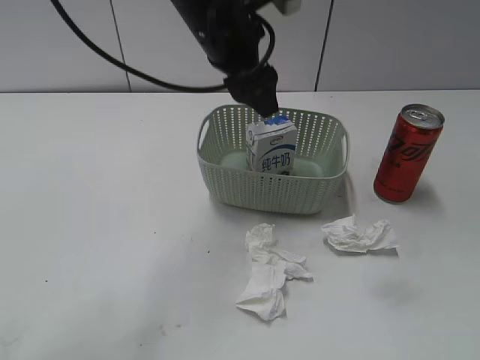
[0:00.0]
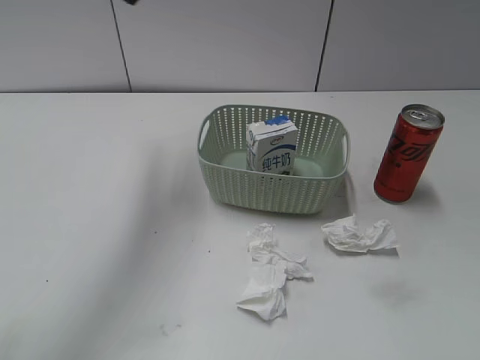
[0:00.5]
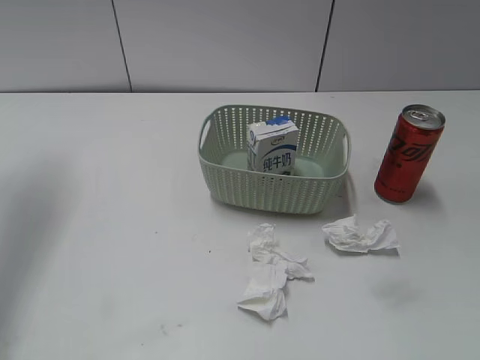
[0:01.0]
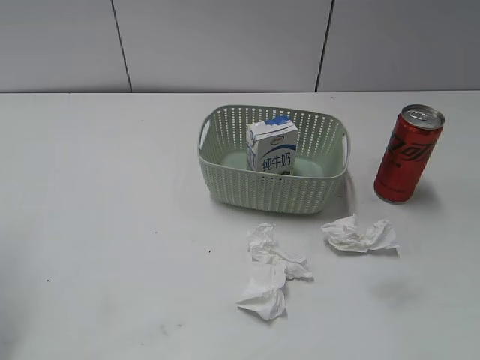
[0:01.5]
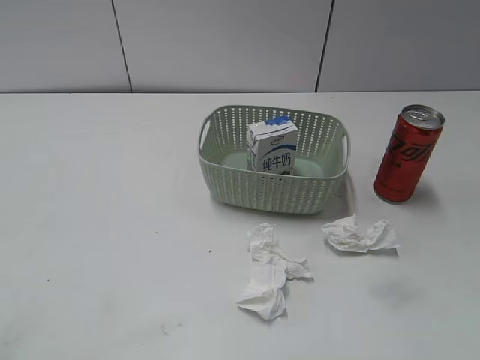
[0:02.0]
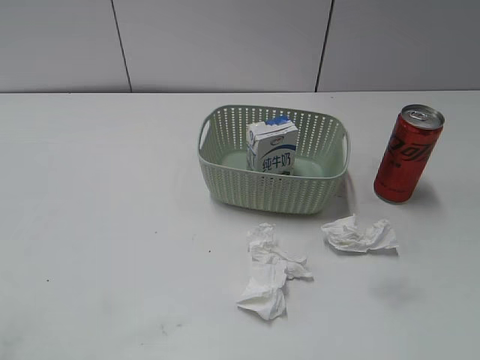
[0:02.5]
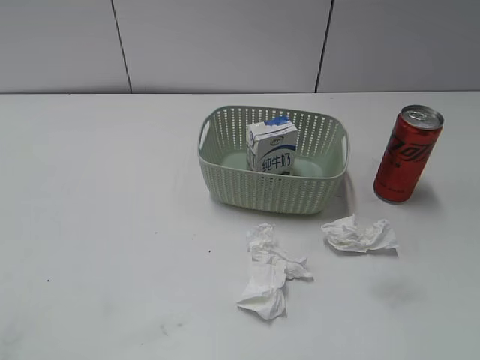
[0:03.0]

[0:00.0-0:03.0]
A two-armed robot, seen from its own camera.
0:00.0 to 0:01.5: The left gripper shifts about 35 cm to the left and backward.

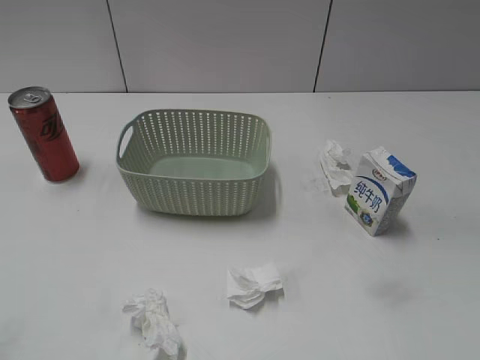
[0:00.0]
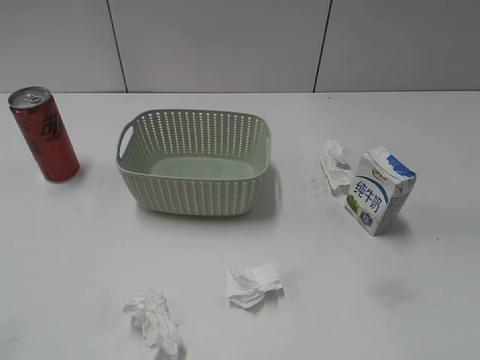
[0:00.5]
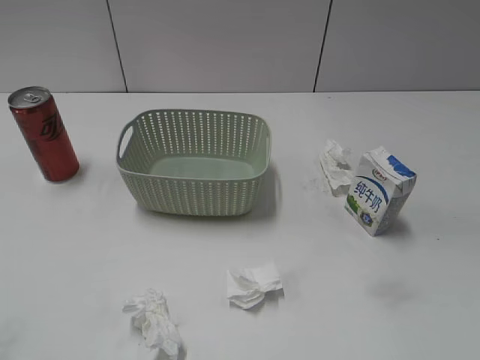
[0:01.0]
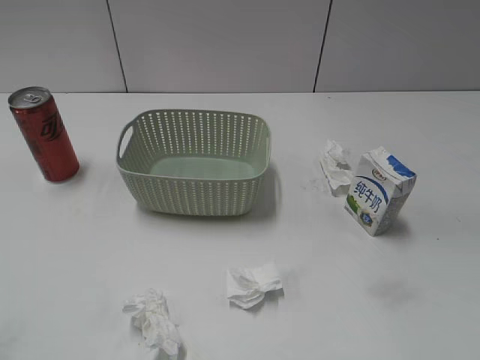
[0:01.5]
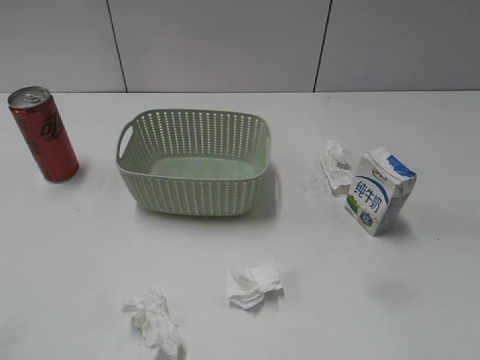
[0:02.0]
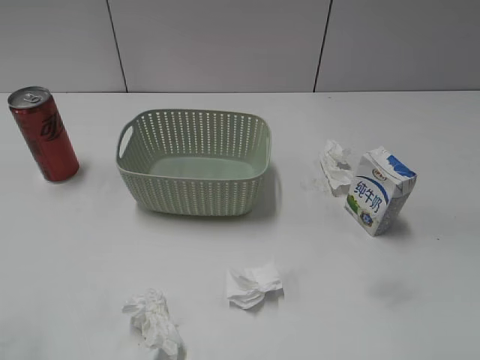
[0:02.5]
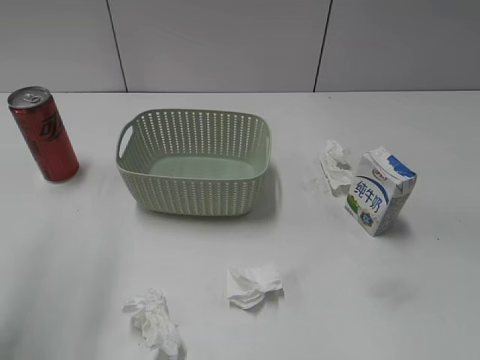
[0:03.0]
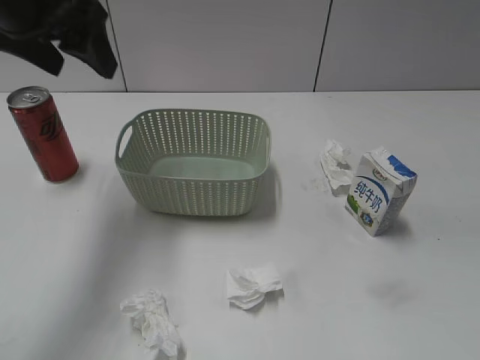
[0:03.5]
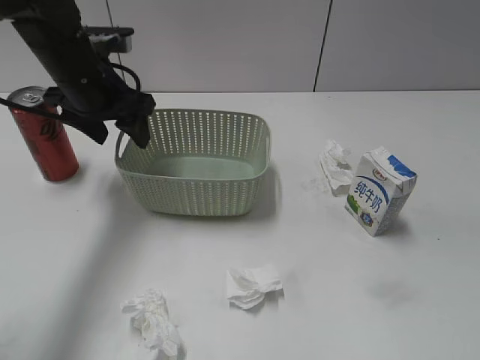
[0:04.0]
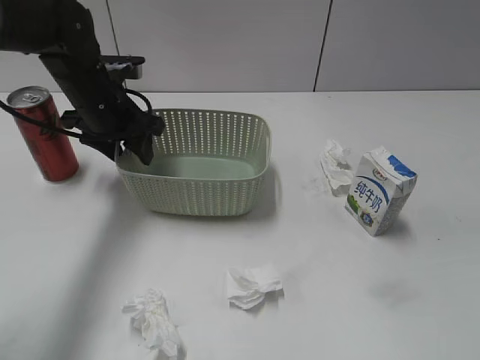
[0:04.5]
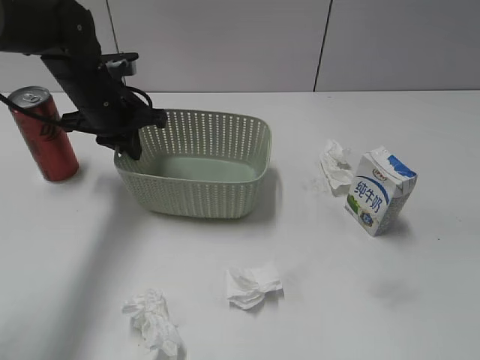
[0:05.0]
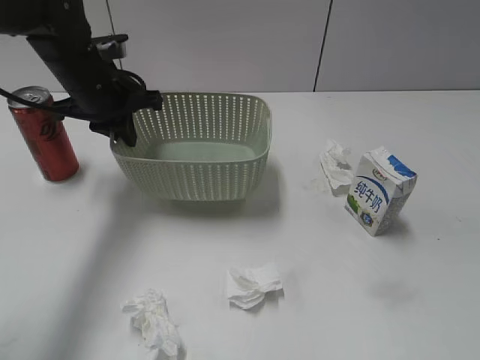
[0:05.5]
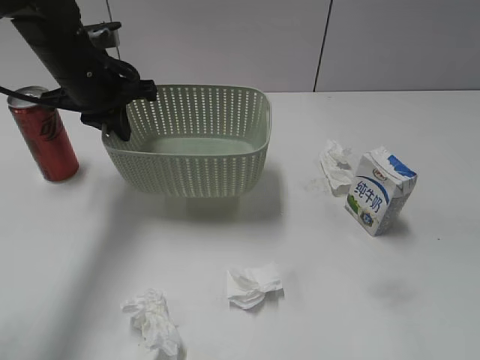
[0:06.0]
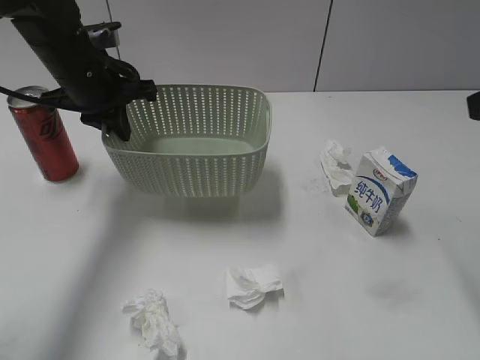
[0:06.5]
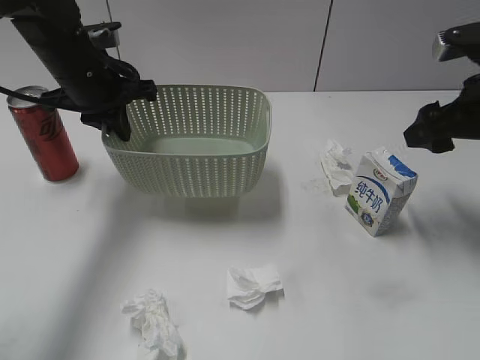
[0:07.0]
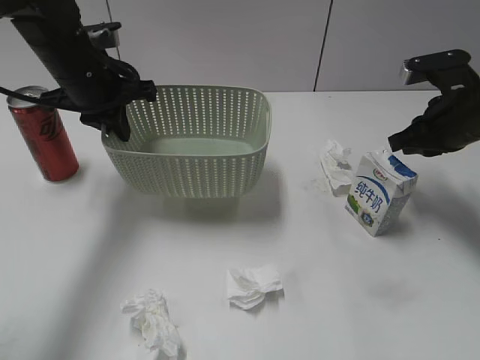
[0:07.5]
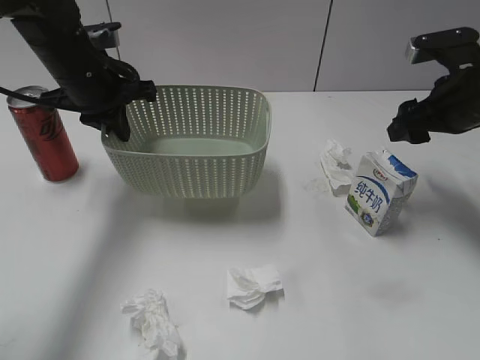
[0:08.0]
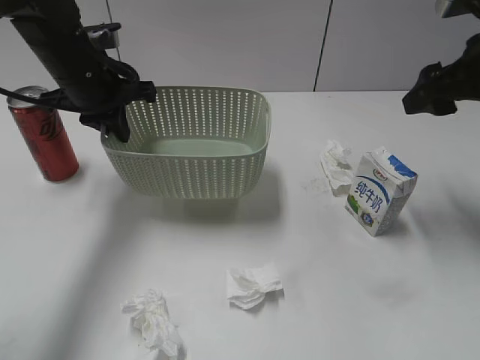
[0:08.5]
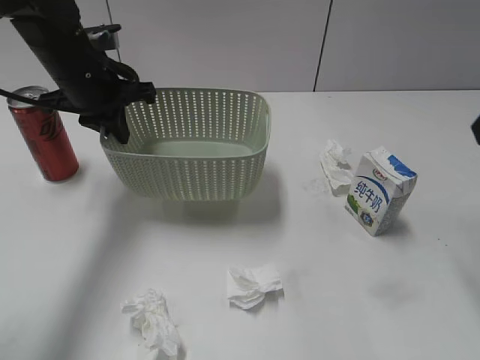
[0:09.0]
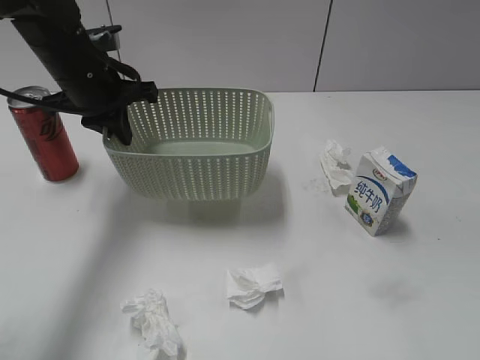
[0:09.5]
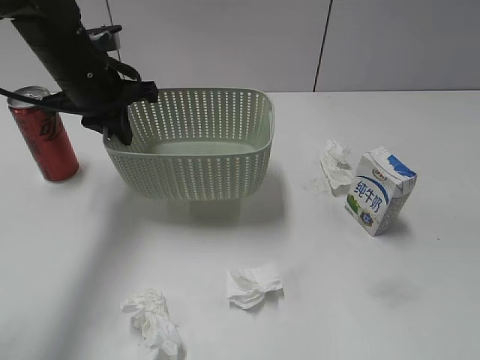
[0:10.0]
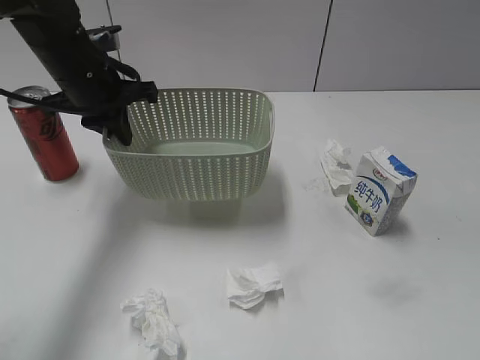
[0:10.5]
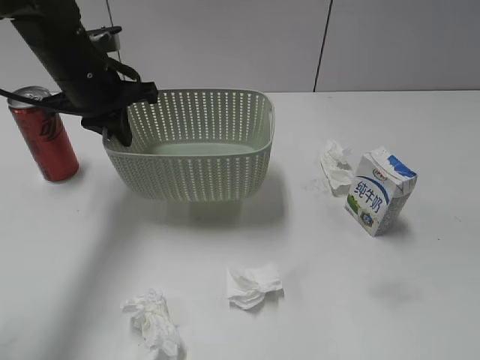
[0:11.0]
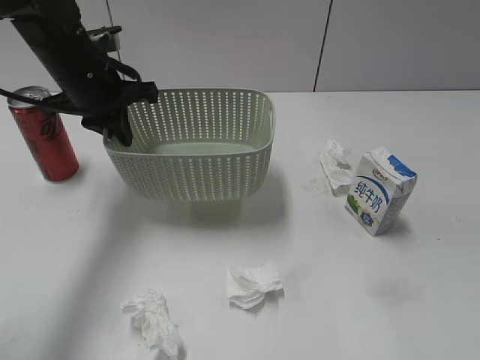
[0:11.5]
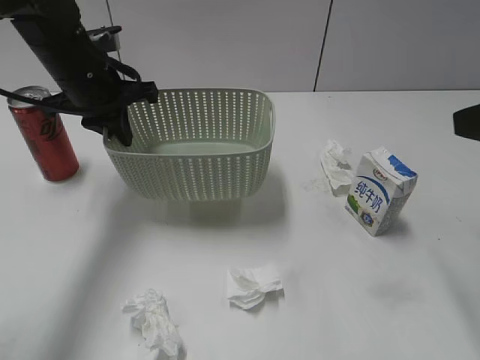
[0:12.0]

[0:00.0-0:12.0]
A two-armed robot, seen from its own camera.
Step, 0:03.5 to 0:05.0: Grasp the basket with left gripper.
Step, 0:05.5 to 0:06.0: Lift the basket with left gripper.
0:02.0 to 0:04.0: The left gripper moves forward, approximately 40 cm, and opens its fingers.
0:04.0 to 0:06.0: The right gripper shifts some 5 cm forward; the left gripper closes its fingers.
0:06.0 to 0:08.0: The right gripper travels forward and downward by roughly 30 cm, and closes.
0:08.0 to 0:10.0: The right gripper moves backward, some 35 cm.
0:10.0 to 0:12.0: The right gripper goes about 20 cm forward.

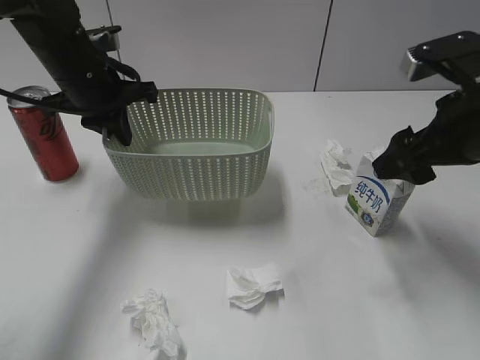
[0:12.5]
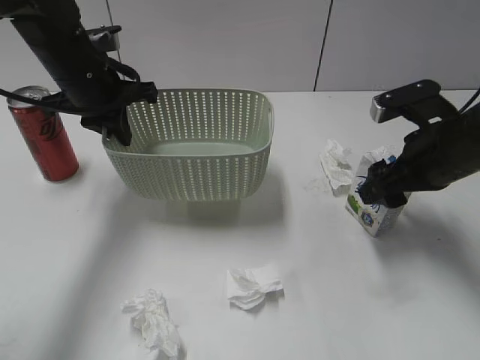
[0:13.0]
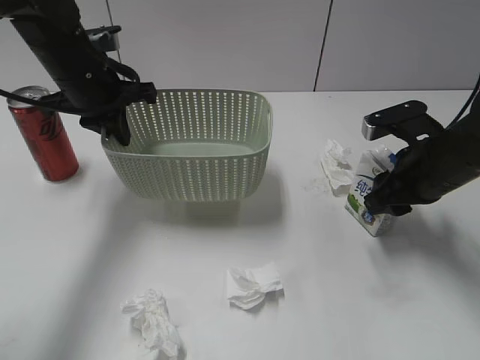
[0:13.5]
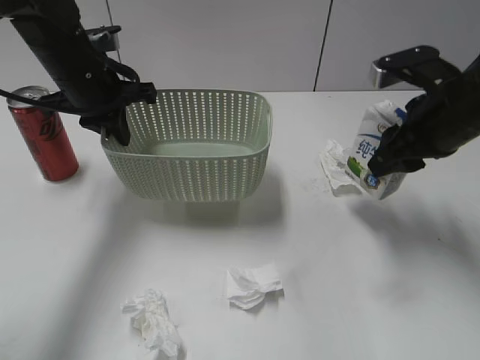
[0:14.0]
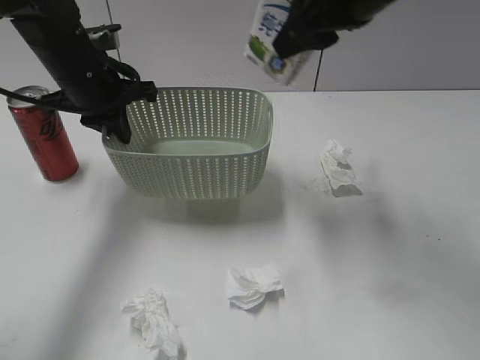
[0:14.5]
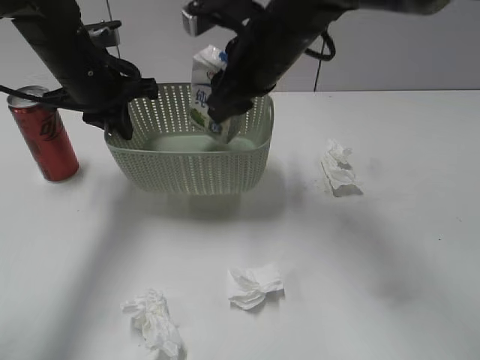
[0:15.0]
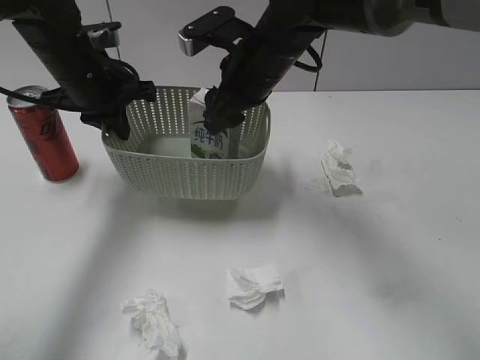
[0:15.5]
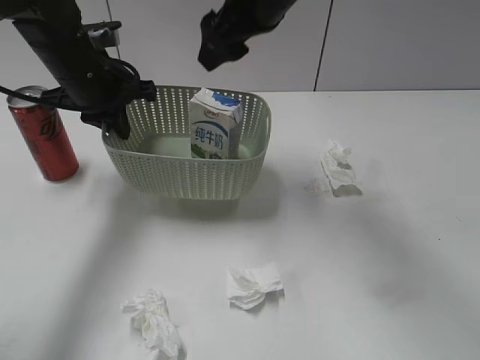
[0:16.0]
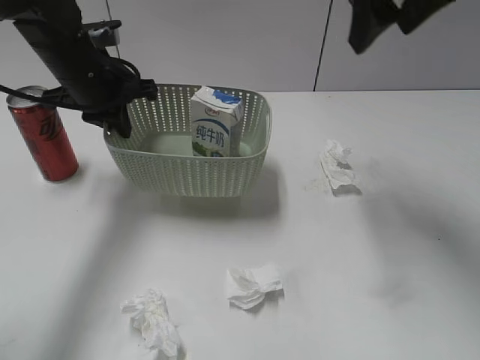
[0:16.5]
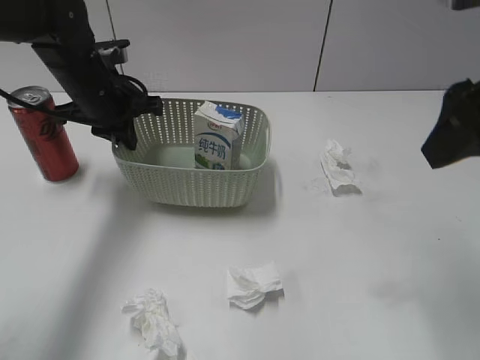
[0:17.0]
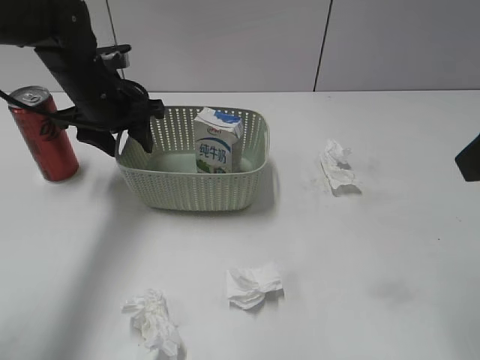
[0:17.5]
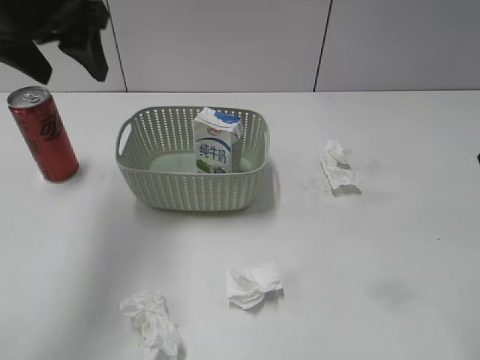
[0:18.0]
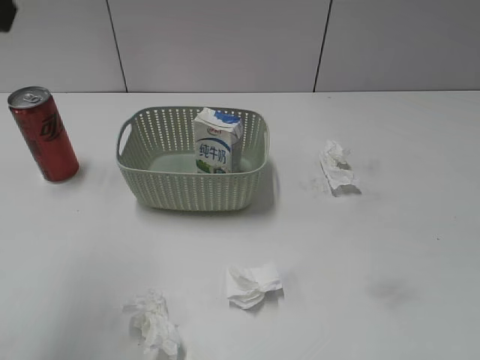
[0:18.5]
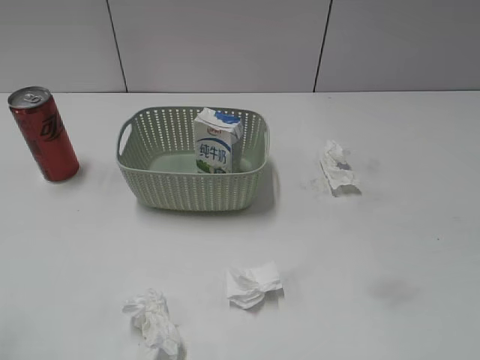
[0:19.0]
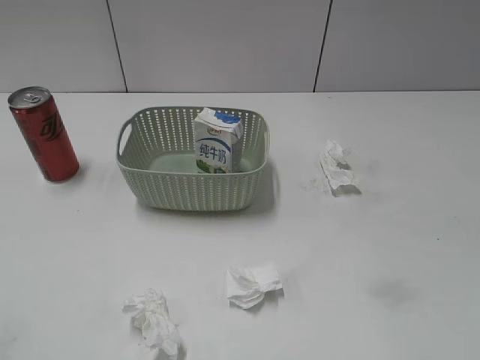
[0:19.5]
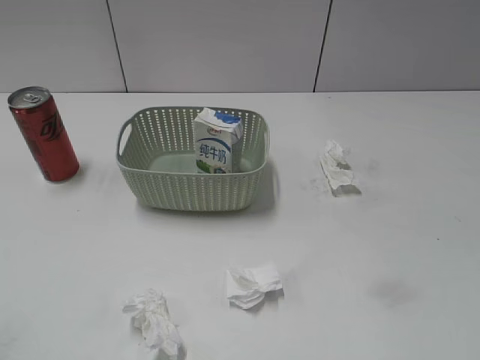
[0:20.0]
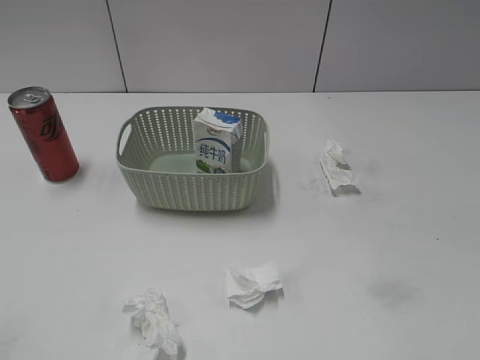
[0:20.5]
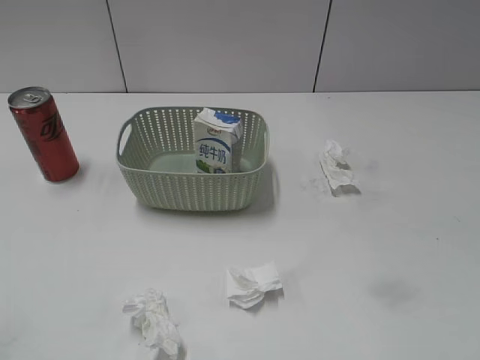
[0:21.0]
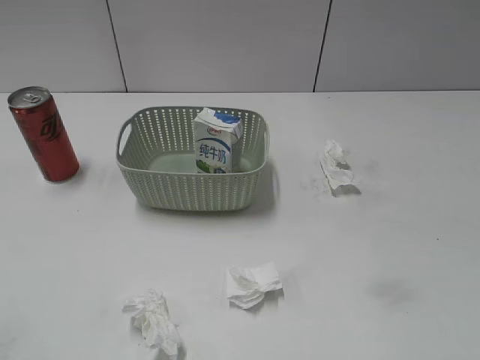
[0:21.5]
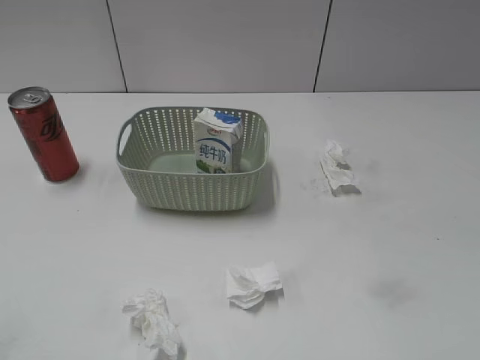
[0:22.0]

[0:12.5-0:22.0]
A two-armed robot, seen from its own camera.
Step, 0:14.0 to 0:16.0: Place the milk in the basket with right gripper.
Step, 0:16.5 to 0:17.5: Place the basket on the table with left gripper.
0:12.5 to 0:14.5: The right gripper travels to the left, upward and forward by some 15 cm, and closes up.
0:14.5 to 0:16.5: The right gripper reaches approximately 10 cm downward, then returns, and opens its fingers.
0:16.5 to 0:18.0: The left gripper shifts approximately 10 cm upward and backward, and opens its fingers. The right gripper is displaced backward and to the right by roughly 20 cm.
0:18.0 to 0:20.0: The left gripper is displaced backward by about 30 cm.

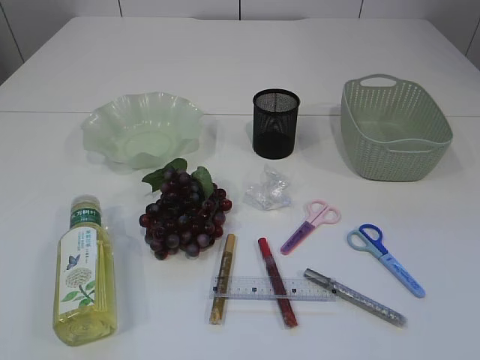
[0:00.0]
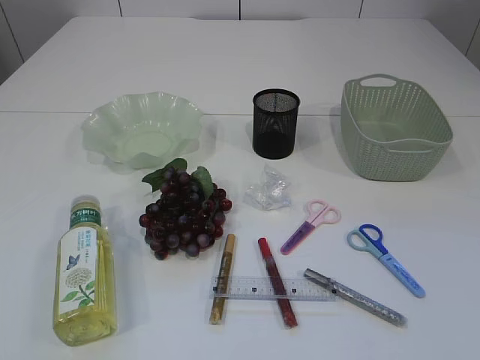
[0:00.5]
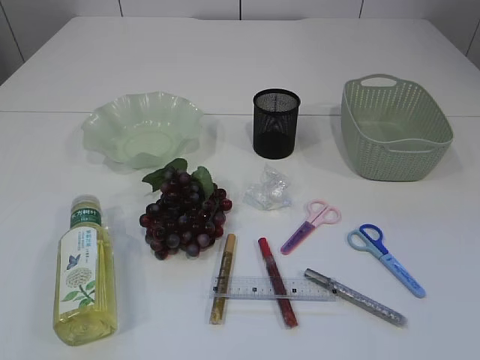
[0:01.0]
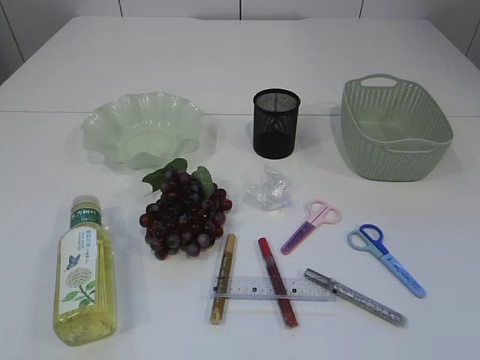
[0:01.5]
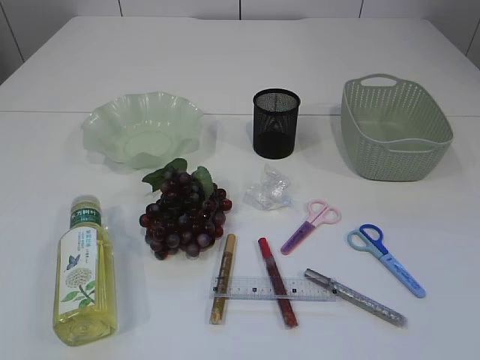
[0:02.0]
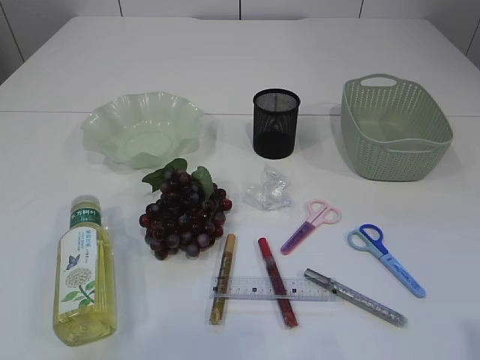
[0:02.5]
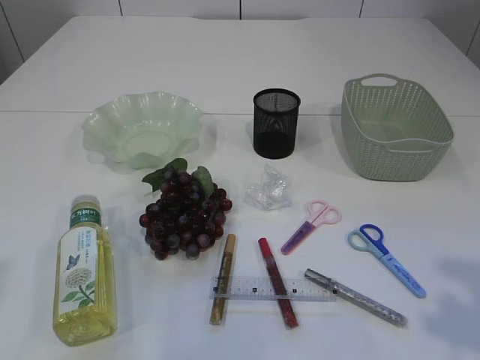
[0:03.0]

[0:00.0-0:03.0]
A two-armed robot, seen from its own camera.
0:01.5 to 0:03.0: The grippers both shift forward by some 15 cm.
